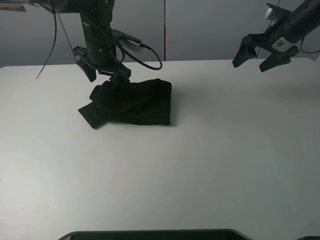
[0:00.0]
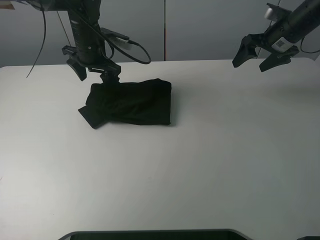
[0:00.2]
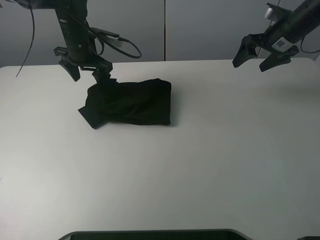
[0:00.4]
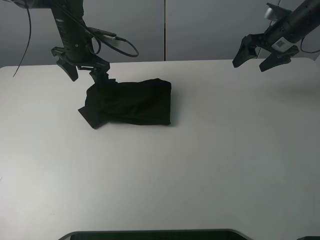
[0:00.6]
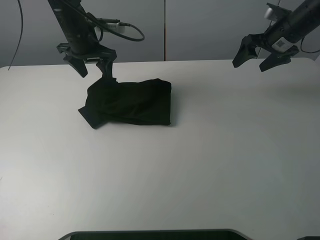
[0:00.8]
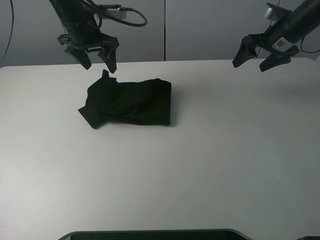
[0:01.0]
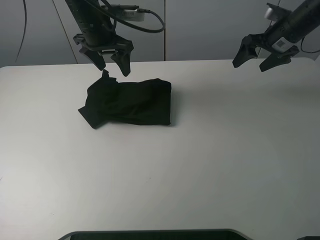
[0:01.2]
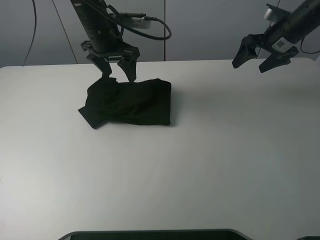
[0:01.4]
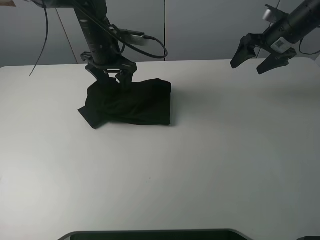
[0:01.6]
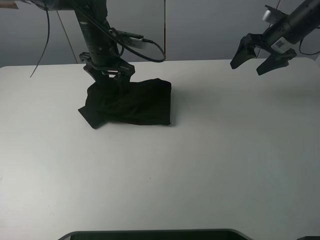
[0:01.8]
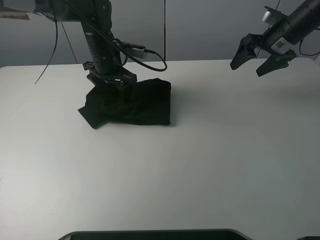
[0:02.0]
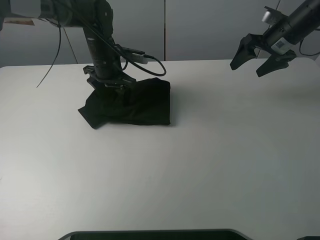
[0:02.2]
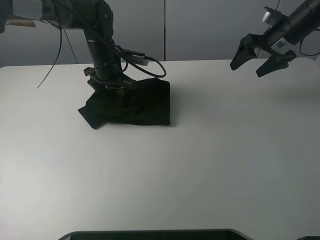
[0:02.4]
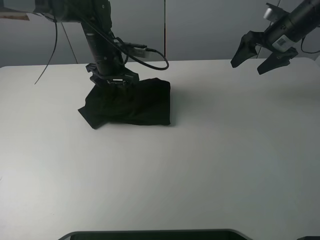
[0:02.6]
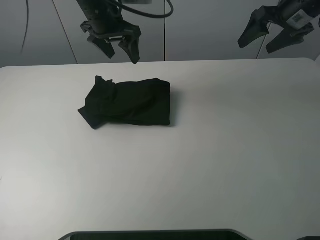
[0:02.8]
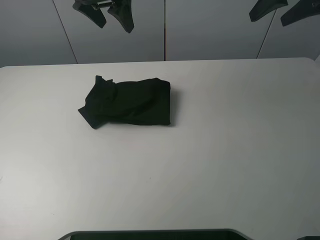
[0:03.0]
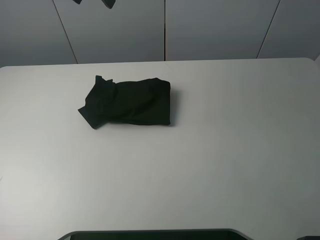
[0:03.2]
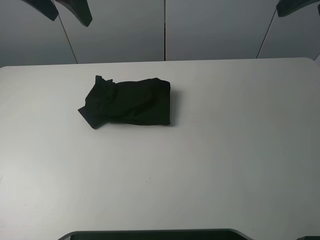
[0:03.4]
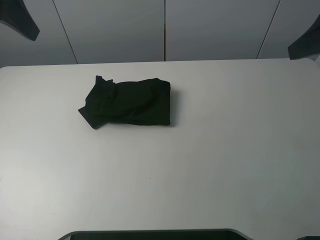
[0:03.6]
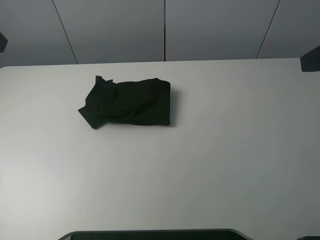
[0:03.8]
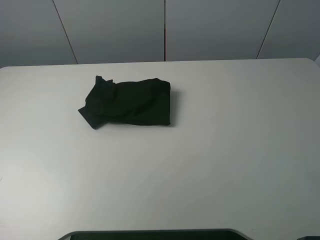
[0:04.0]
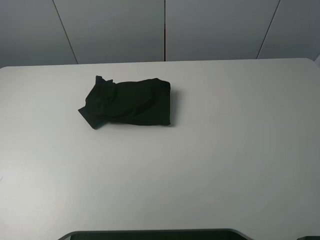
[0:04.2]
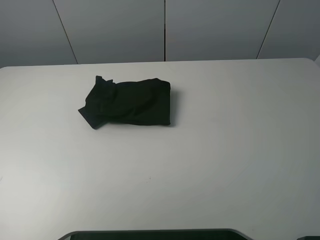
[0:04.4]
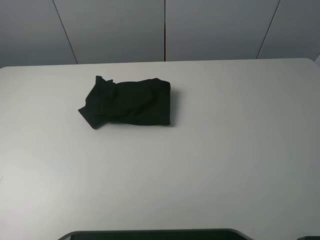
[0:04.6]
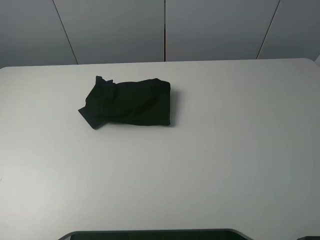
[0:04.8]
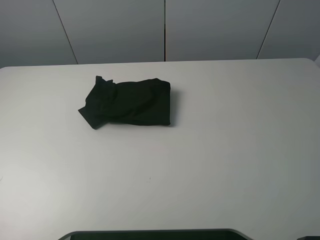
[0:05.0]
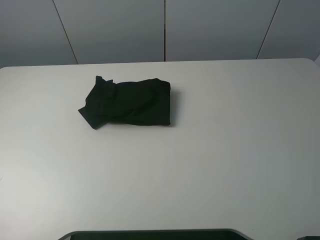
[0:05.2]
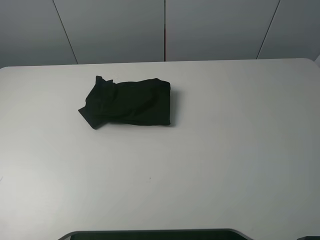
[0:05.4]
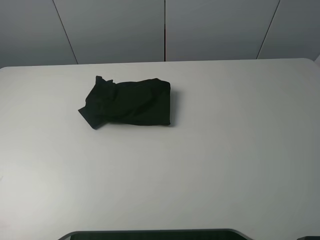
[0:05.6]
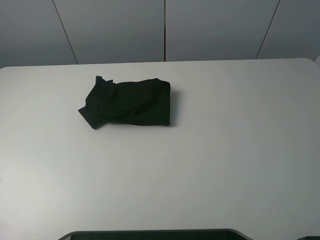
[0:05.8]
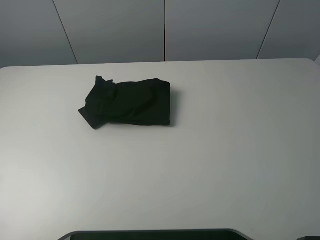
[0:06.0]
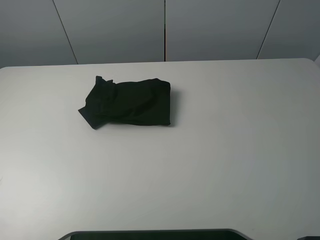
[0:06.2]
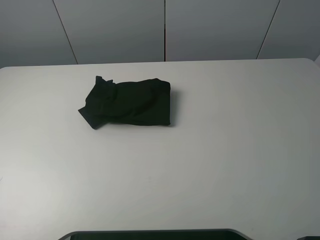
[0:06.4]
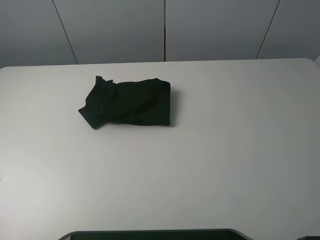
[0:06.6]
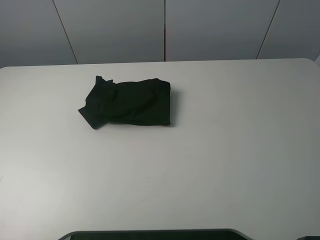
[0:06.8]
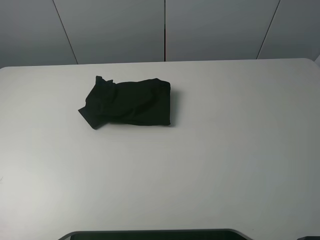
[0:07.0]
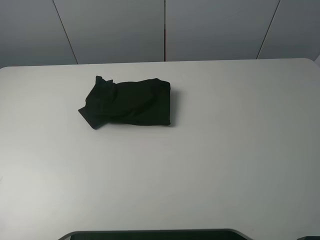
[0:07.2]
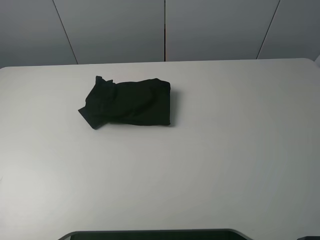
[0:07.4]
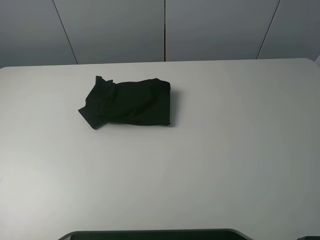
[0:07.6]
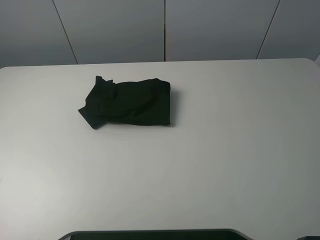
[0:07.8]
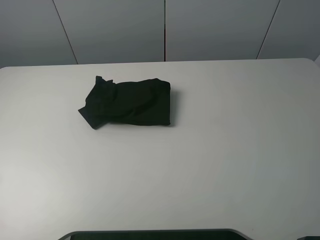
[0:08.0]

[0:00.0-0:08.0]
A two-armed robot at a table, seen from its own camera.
Task of the whole recording: fold the clothes on the table.
Step, 0:00.0 to 0:02.6: Use the left gripper to tidy up the clothes.
0:00.0 to 0:01.6: The grippers stay close to where they were, moving slightly.
0:01.6 to 0:03.2: The right gripper is displaced upward and backward by approximately 20 cm; the left gripper heads upward, covering about 20 cm.

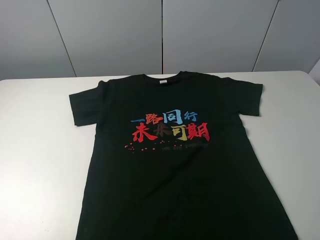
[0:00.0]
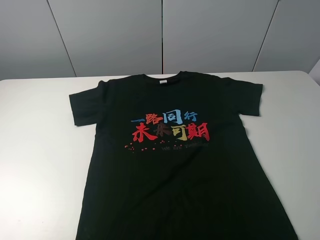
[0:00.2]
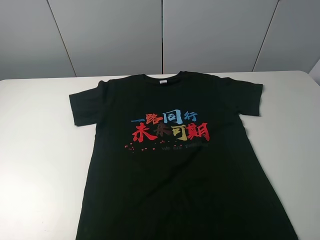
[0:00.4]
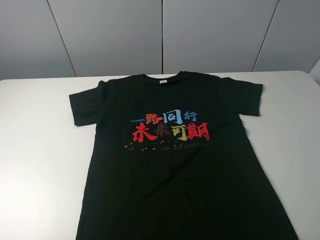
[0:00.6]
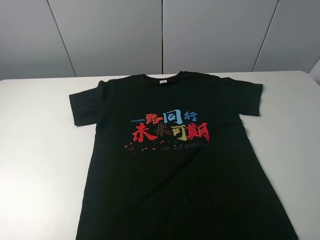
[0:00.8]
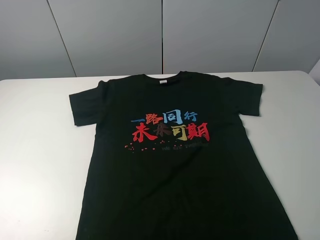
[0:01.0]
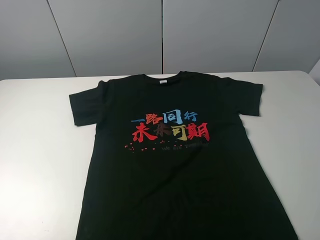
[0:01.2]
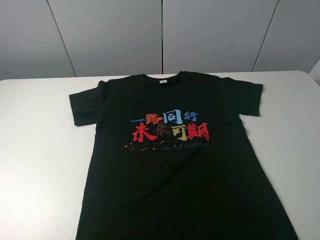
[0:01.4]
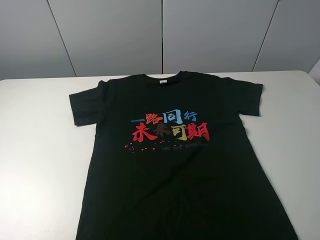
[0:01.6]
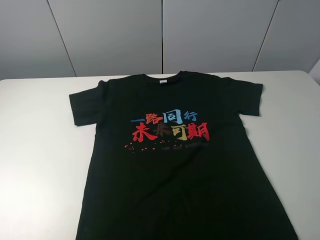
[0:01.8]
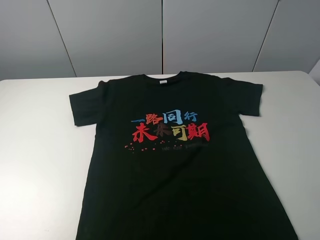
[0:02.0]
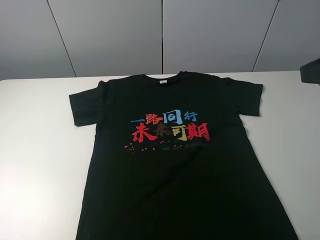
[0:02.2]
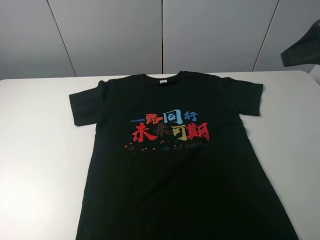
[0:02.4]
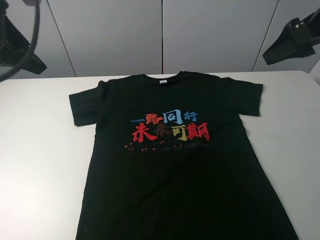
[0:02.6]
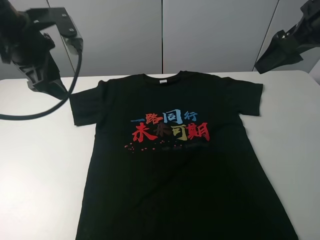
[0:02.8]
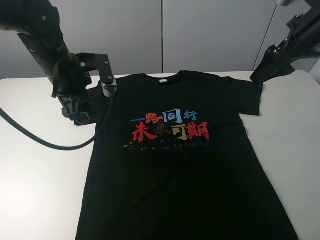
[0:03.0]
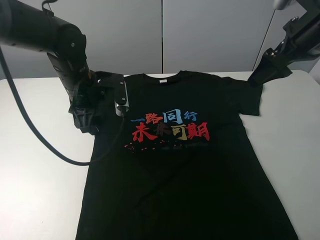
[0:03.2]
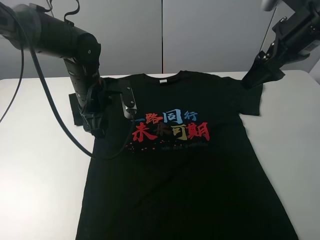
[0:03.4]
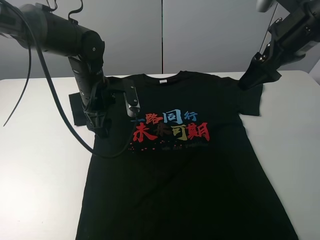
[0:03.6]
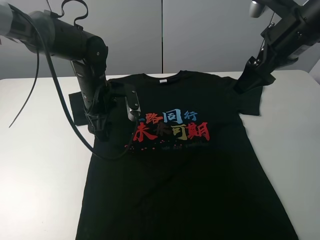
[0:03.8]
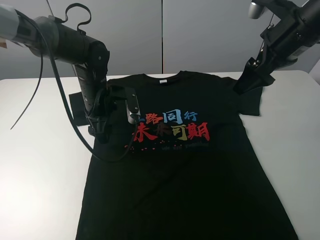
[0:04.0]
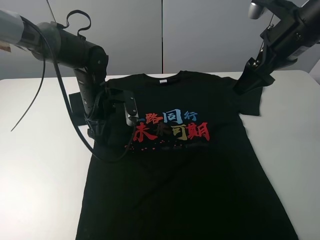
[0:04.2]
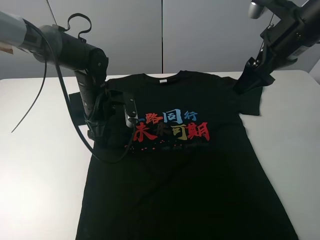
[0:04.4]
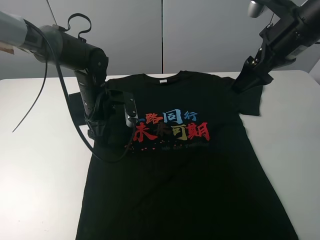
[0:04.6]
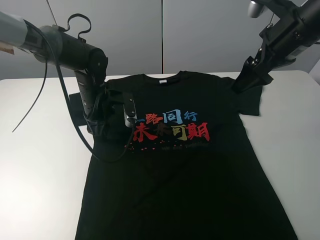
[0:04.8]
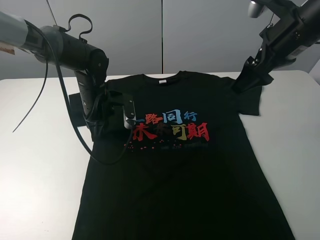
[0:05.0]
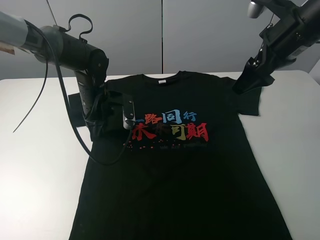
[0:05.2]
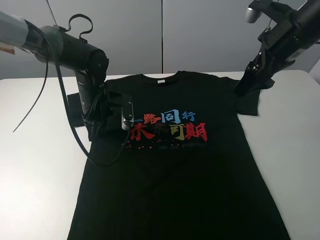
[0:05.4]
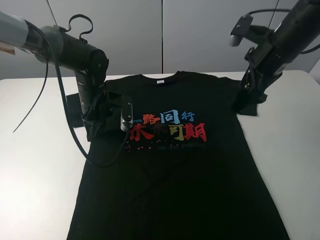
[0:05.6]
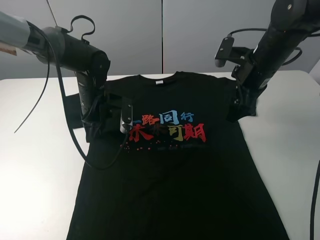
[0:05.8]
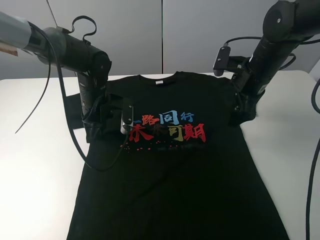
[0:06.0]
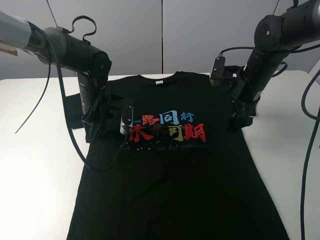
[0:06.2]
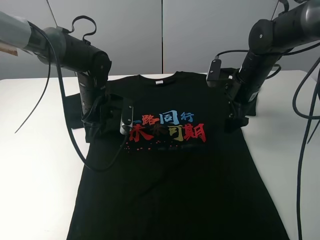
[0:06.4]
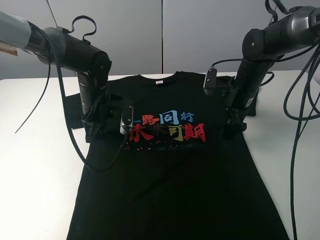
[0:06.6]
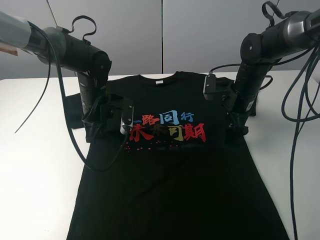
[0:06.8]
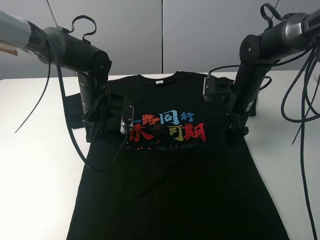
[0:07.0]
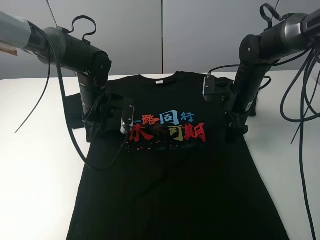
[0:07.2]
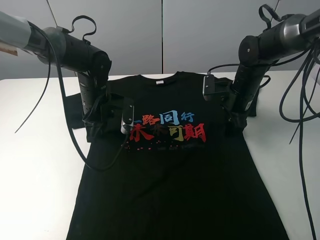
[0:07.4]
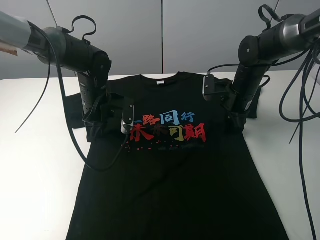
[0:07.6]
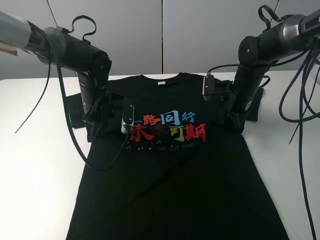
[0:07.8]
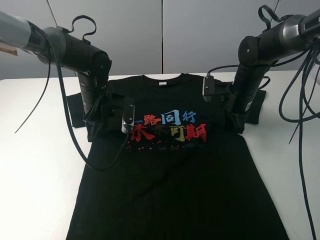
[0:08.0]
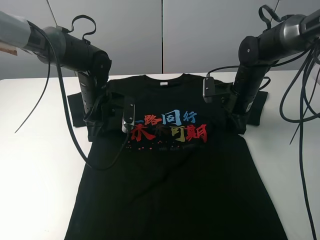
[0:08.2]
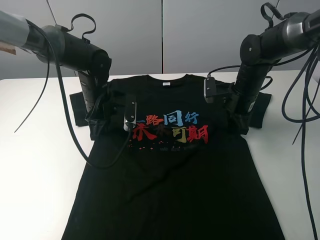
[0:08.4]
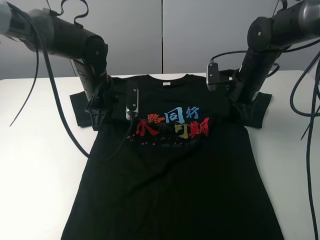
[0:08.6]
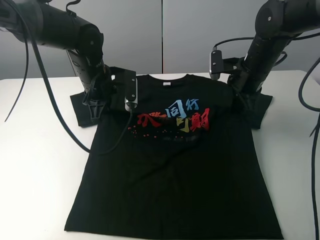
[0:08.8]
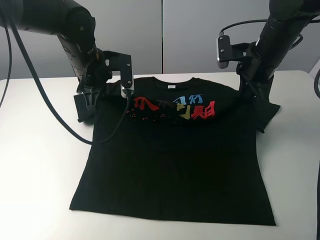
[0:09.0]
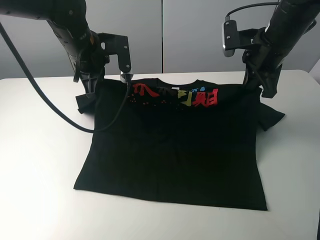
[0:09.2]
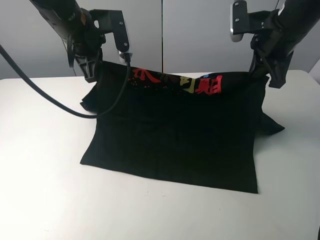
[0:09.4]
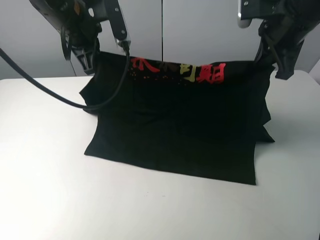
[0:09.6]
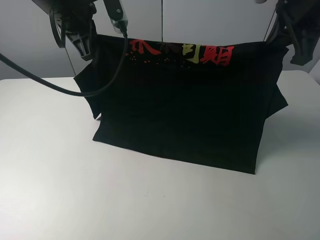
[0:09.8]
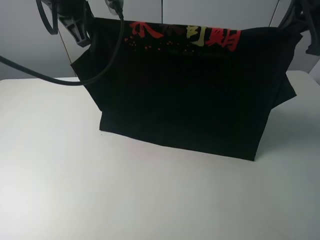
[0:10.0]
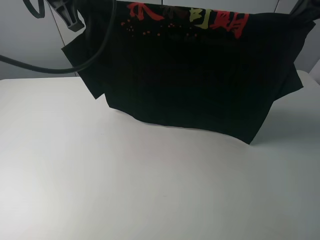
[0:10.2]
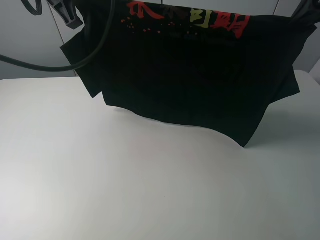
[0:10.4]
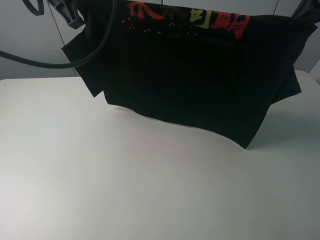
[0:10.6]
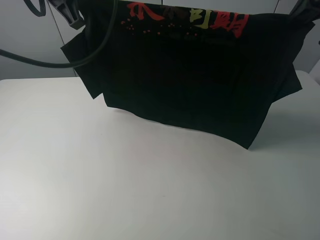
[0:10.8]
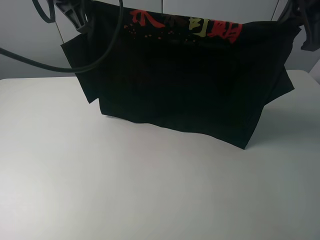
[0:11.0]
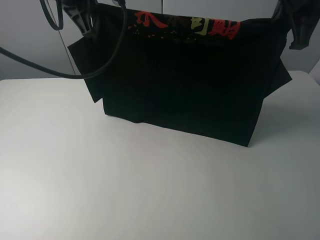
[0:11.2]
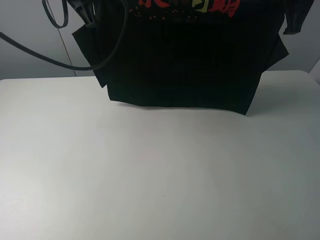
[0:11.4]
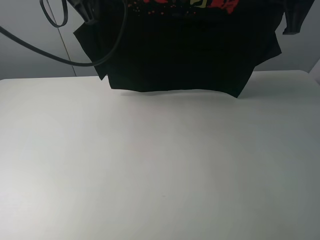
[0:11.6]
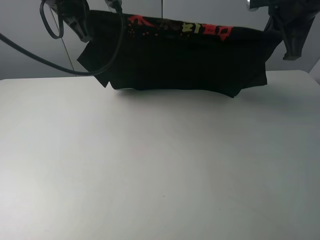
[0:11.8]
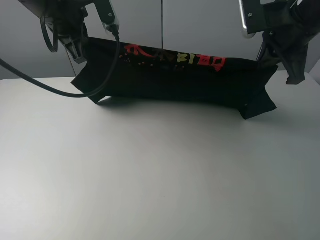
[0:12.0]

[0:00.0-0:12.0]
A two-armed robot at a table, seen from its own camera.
Task of the whole recording: fold the clothes on the table.
Step, 0:00.0 to 0:07.6: Lift the black T-shirt with the left gripper.
0:00.0 to 0:01.6: The two grippers keep their place.
0:01.6 to 0:03.0: The right gripper shifts about 30 cm forward. The left gripper moves forward and to the right, approximately 35 cm.
0:03.0 to 0:04.4: The left gripper travels downward by about 10 cm.
0:04.4 to 0:06.0: The right gripper goes about 10 cm downward. The left gripper closes.
0:06.0 to 0:07.6: The right gripper travels downward by some 5 cm, and closes its fingers.
0:07.6 to 0:09.0: Both grippers travel together upward, about 10 cm. The right gripper closes its fingers.
0:09.0 to 0:10.4: The left gripper heads upward, covering roughly 15 cm. The right gripper heads upward and backward, covering about 20 cm.
0:10.4 to 0:12.0: Both grippers move downward, about 10 cm.

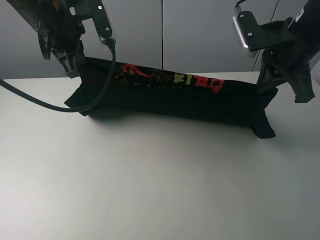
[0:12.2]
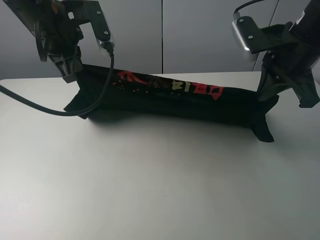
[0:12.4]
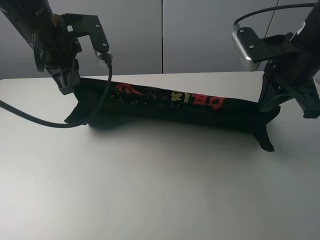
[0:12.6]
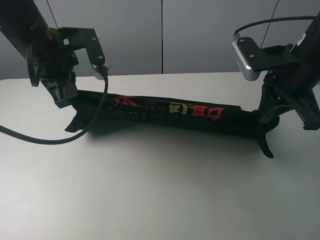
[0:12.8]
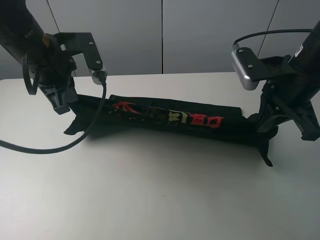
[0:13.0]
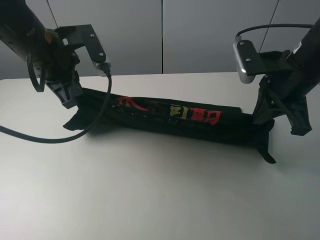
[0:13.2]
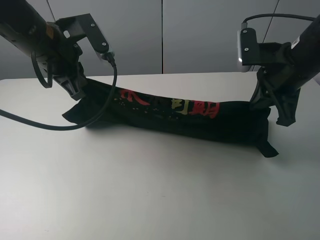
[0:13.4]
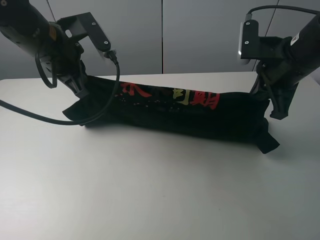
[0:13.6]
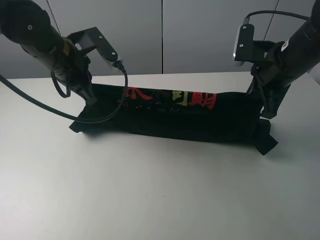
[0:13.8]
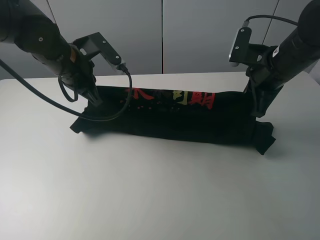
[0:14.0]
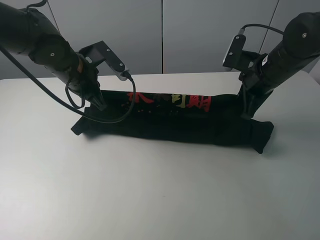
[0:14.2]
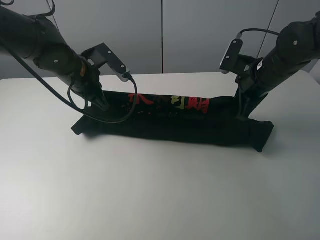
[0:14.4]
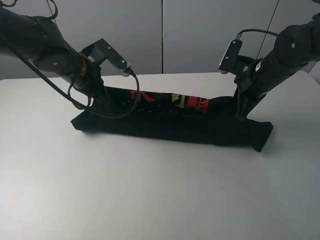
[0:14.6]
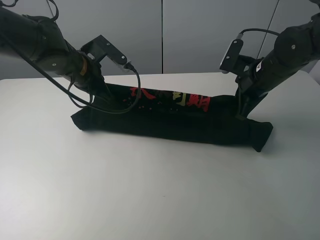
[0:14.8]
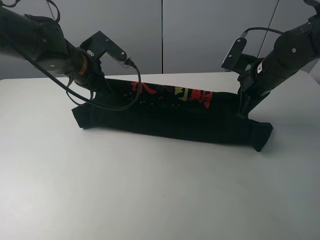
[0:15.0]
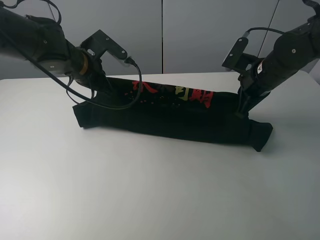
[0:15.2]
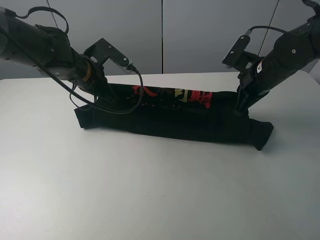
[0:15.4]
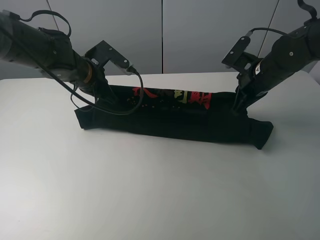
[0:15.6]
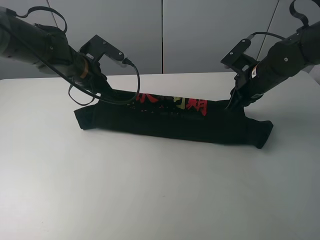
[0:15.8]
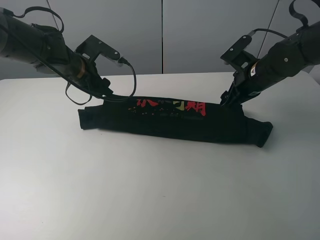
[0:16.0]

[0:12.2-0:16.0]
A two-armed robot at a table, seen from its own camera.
Task of the whole recording: fold the clothes on the table.
0:13.4 to 0:14.8: Both grippers move downward and forward, approximately 10 cm.
0:14.8 to 0:16.0: The left gripper opens, while the right gripper opens.
